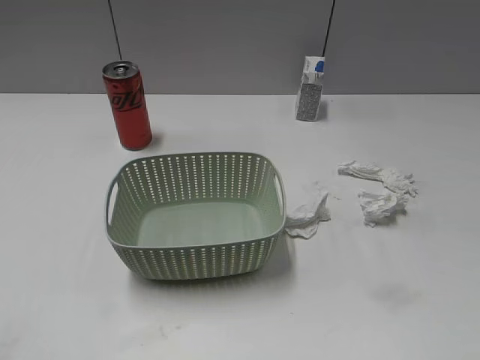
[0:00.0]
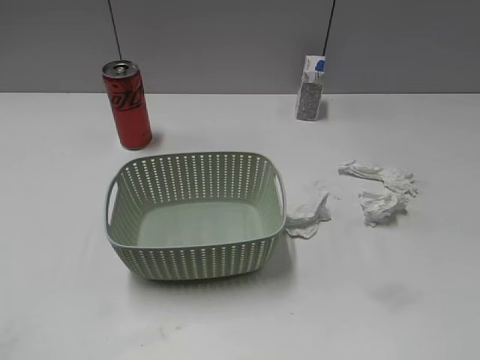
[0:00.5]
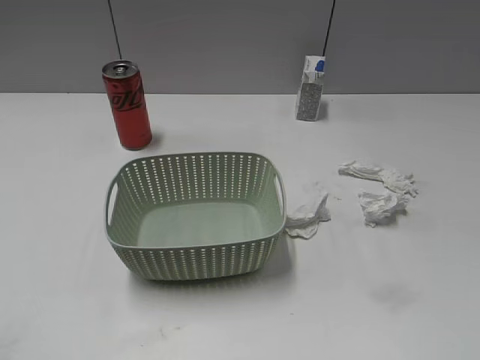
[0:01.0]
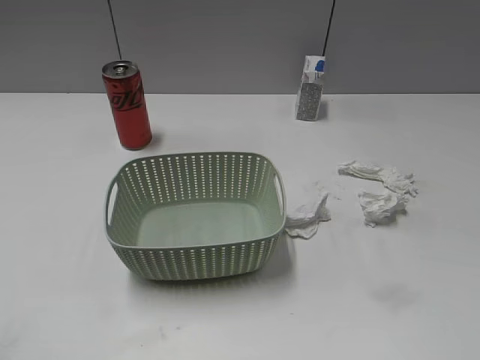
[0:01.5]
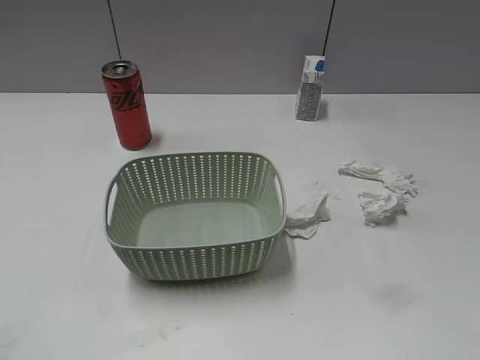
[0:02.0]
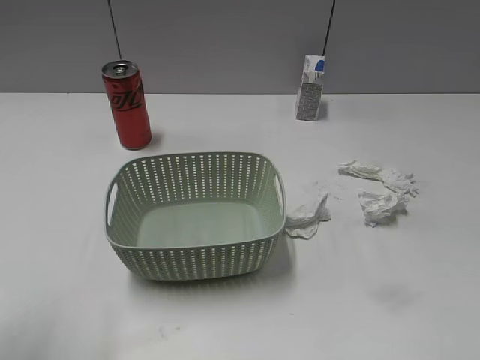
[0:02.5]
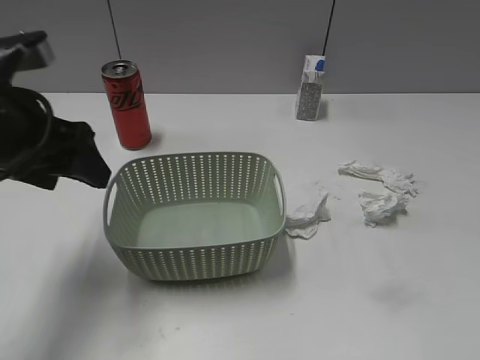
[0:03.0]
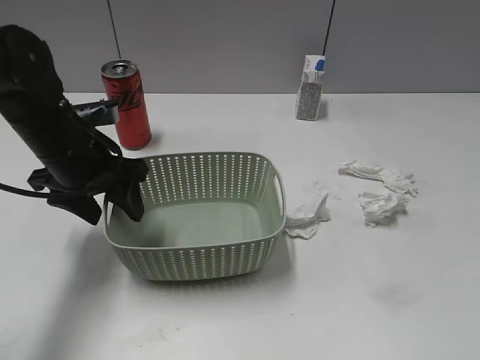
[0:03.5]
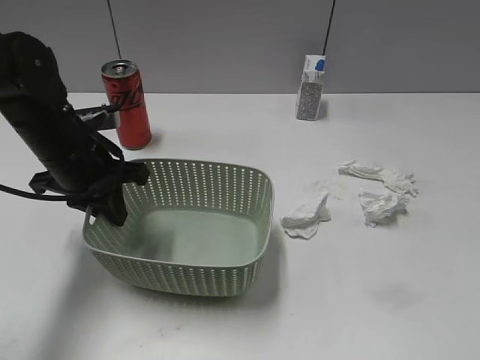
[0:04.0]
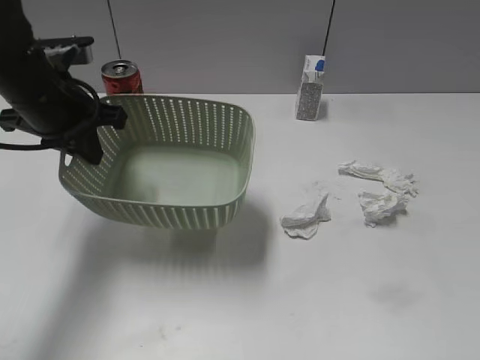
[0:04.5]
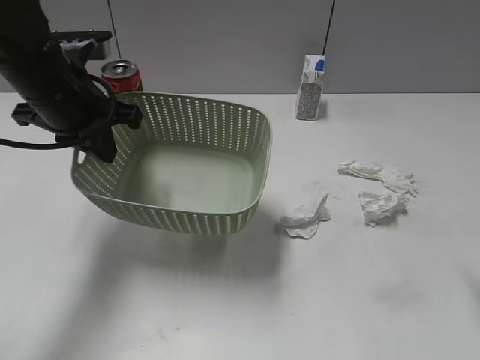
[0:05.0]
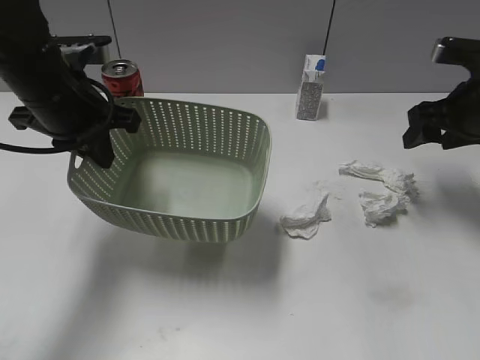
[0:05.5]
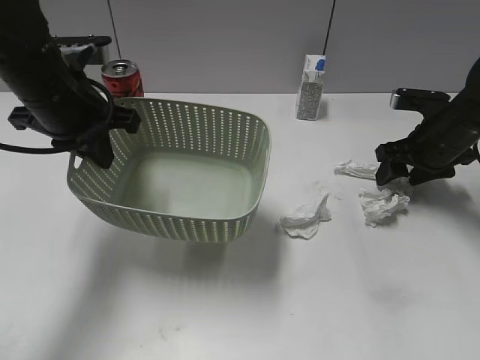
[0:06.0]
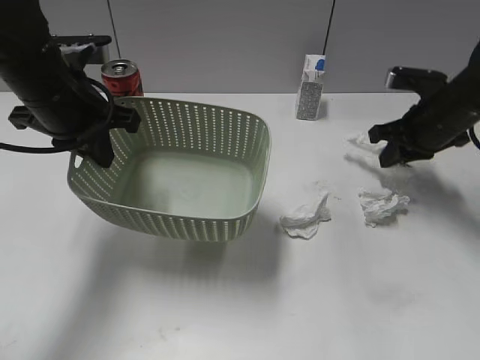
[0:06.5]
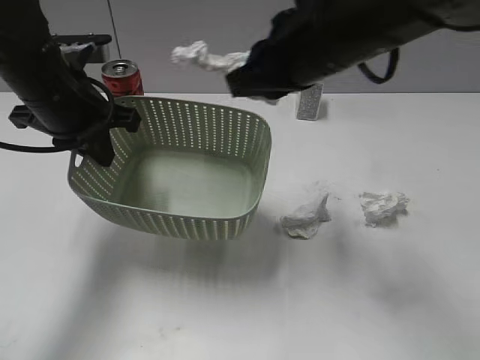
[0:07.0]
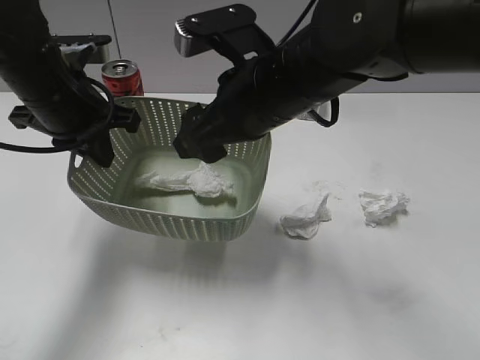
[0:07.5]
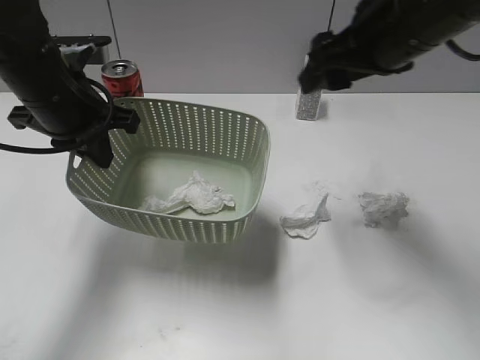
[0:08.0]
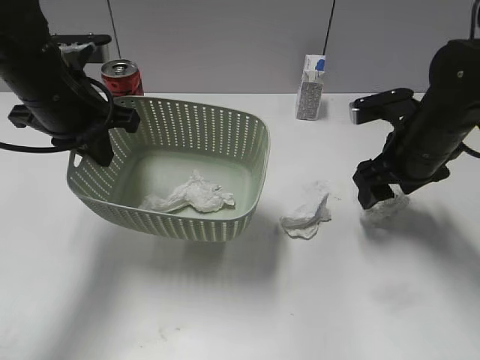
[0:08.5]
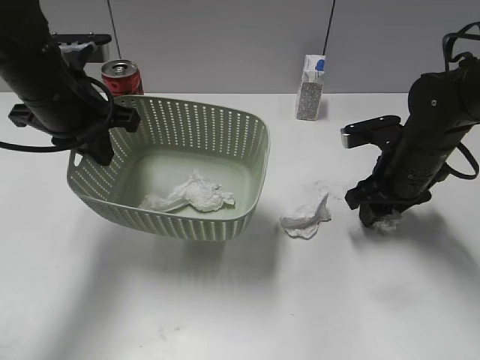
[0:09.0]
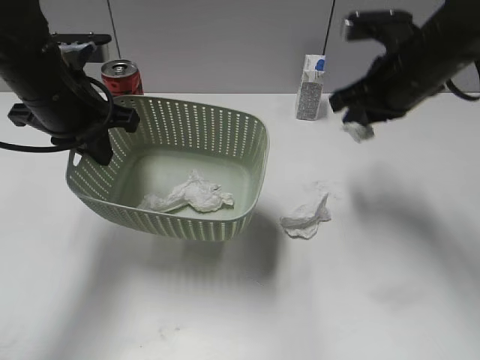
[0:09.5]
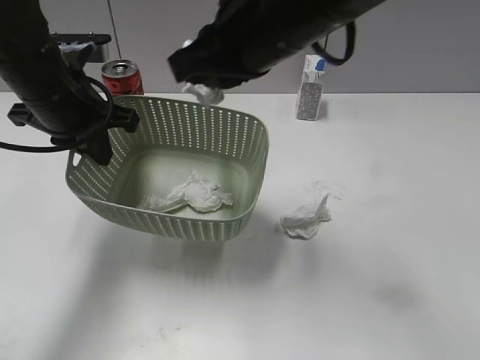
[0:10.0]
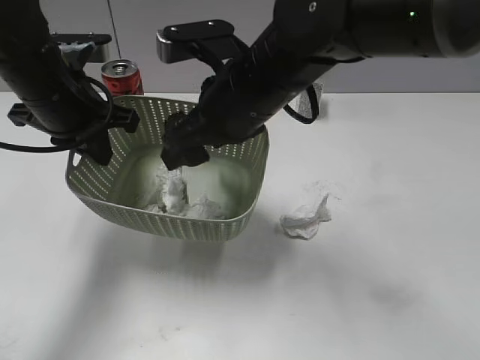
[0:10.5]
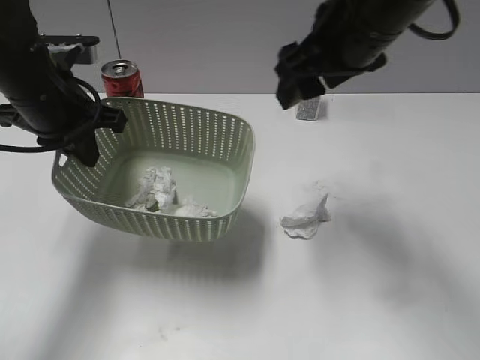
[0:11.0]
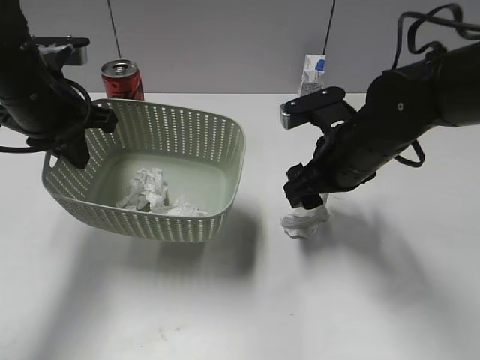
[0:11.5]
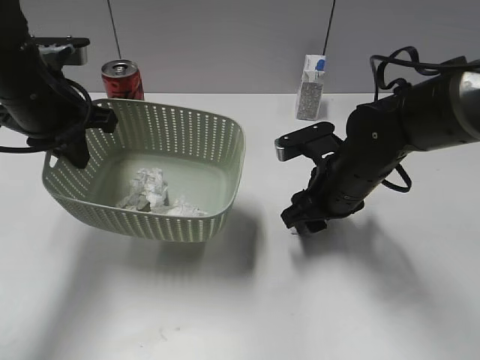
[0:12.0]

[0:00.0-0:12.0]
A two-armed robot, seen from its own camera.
Step, 0:02.5 to 0:04.0: Grasp the basket with left gripper.
Step, 0:04.5 to 0:06.5: Grasp the waste paper with right gripper.
Step, 0:07.0 to 0:07.5: Place the waste paper in the basket with right gripper.
Step, 0:08.0 to 0:09.5: Grasp the waste paper with right gripper.
Step, 0:10.0 to 0:10.5: Place the waste paper in the basket with right gripper.
0:02.0 to 0:04.0: The left gripper is displaced forward and downward by about 30 cm, and closes up.
0:04.0 to 0:06.0: The right gripper heads forward, covering some 40 cm. The left gripper heads upward, covering roughly 5 cm.
0:06.0 to 0:08.0: The right gripper is displaced upward, to the left and backward by about 25 cm, and closes, then reopens.
0:08.0 to 0:10.0: The right gripper travels to the left by approximately 15 cm, and closes up.
0:10.0 to 0:12.0: The right gripper goes up and down, approximately 20 cm each way, reversing 2 times, and opens.

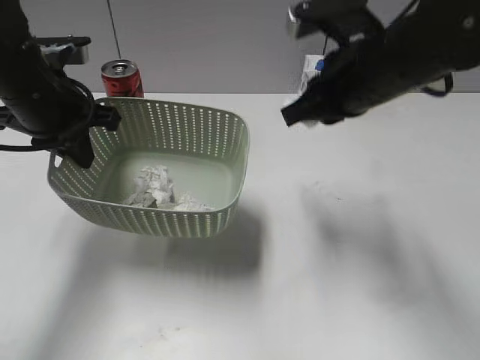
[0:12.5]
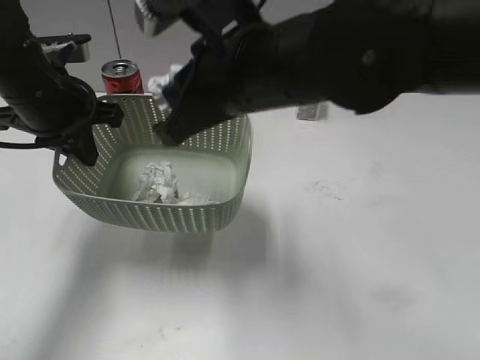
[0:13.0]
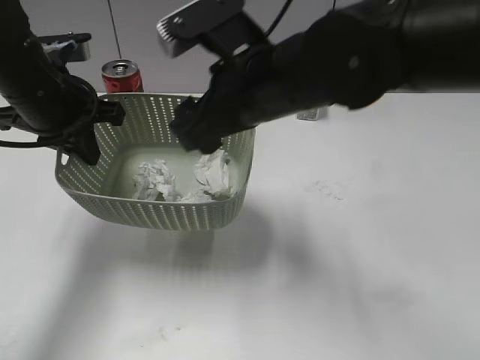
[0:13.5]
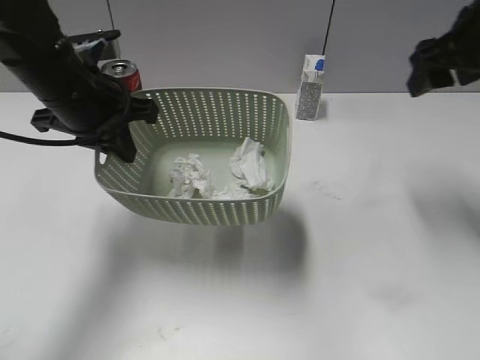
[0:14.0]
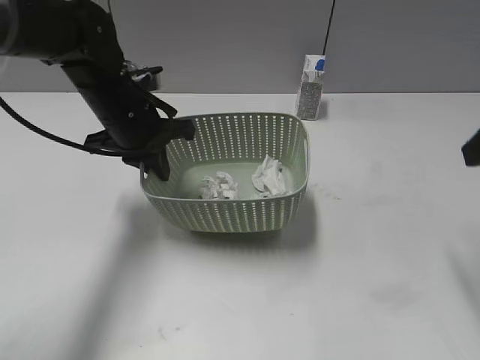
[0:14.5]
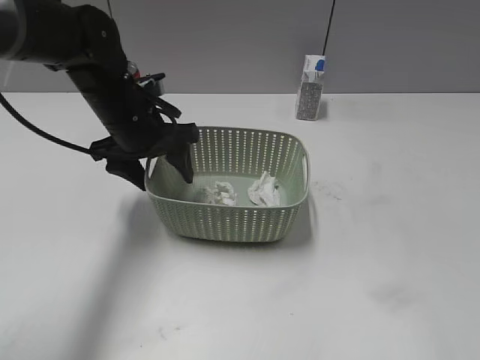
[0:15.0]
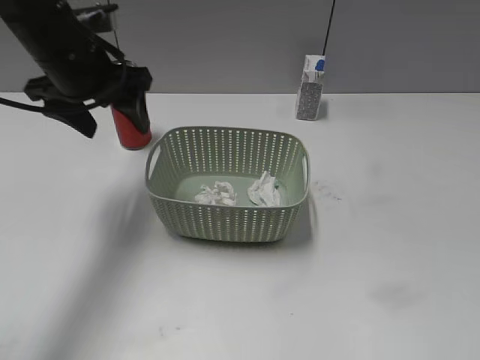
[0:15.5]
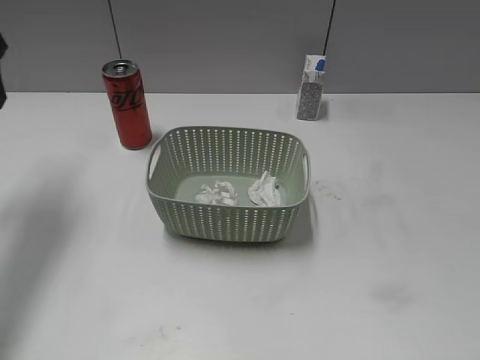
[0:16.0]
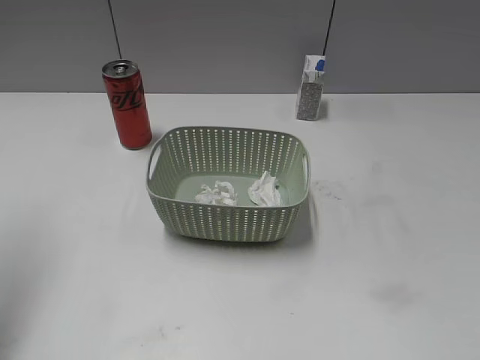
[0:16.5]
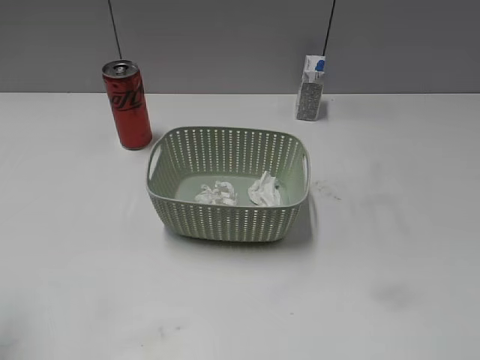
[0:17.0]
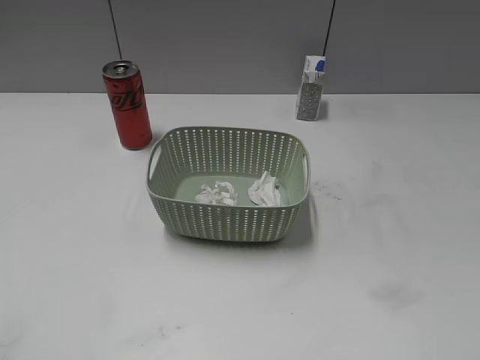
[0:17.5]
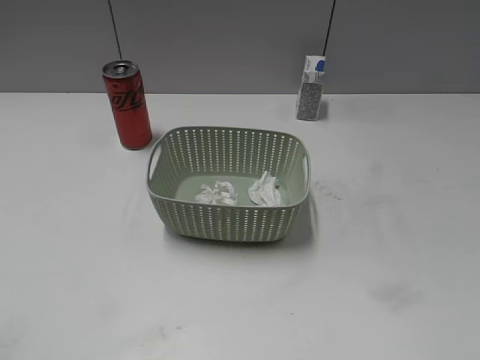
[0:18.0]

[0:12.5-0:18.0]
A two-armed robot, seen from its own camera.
Step, 0:12.5 to 0:13.5: Place the waste paper in the basket with right gripper.
Step, 0:14.0 to 0:14.5: Place the basket on the table with left gripper.
0:12.5 to 0:14.5: The right gripper is displaced to the right and backward by about 20 cm, and opens up. The left gripper heads to the right and downward, covering approximately 10 cm.
0:14.5 to 0:16.0: The right gripper heads backward, covering approximately 20 cm; the left gripper is displaced to the left and upward by some 20 cm, and opens.
0:16.0 to 0:18.0: The left gripper travels backward by about 35 cm.

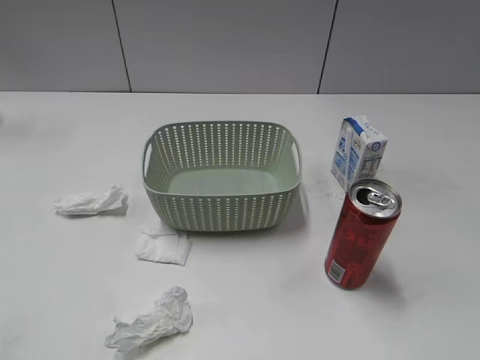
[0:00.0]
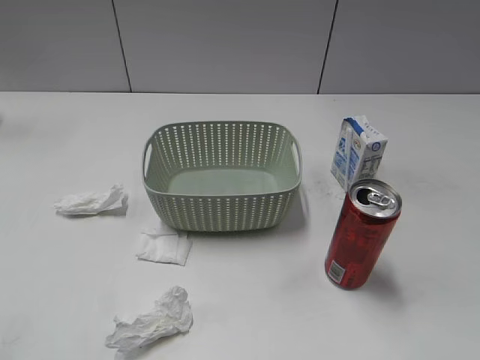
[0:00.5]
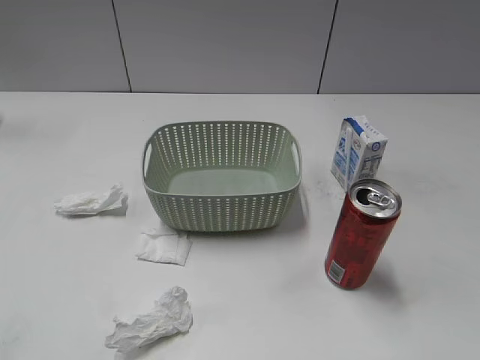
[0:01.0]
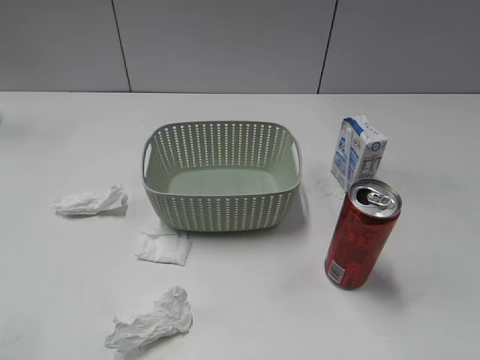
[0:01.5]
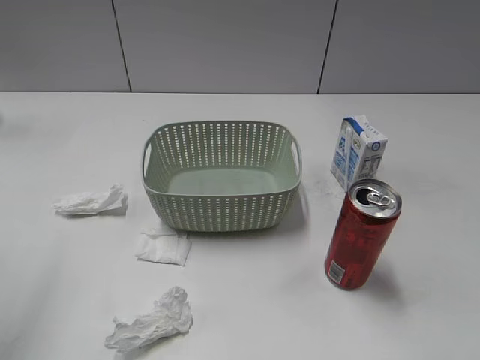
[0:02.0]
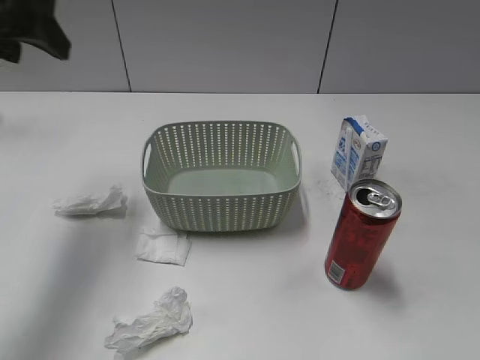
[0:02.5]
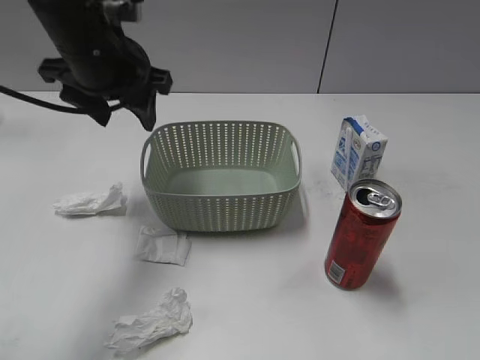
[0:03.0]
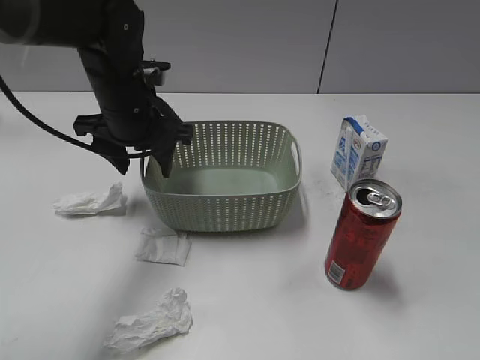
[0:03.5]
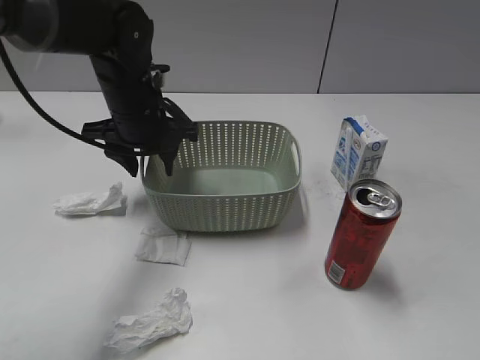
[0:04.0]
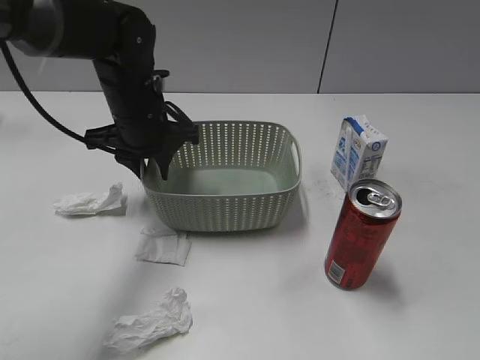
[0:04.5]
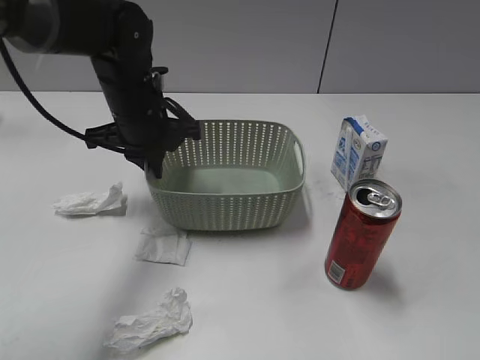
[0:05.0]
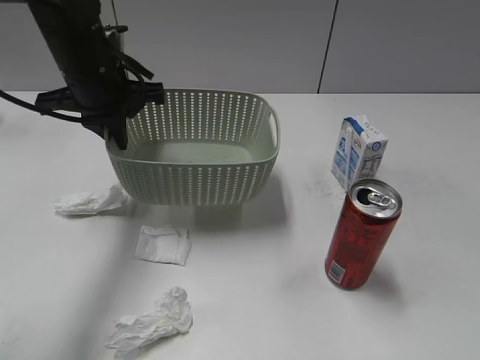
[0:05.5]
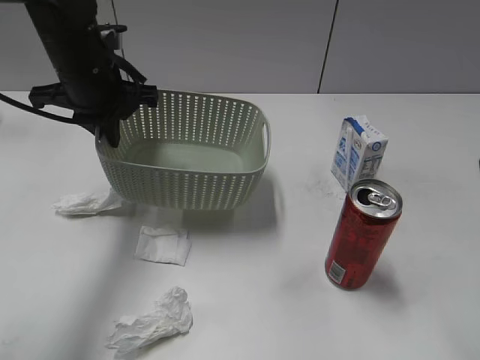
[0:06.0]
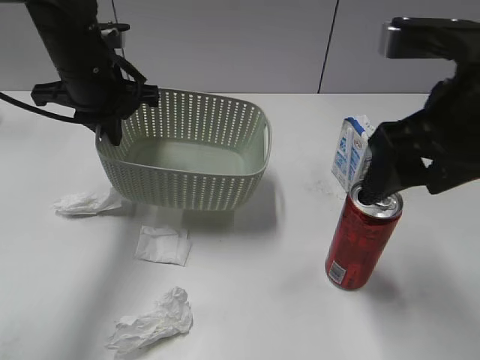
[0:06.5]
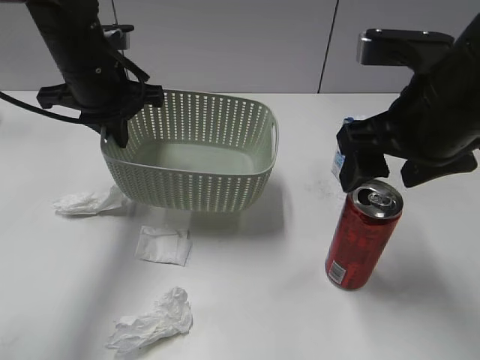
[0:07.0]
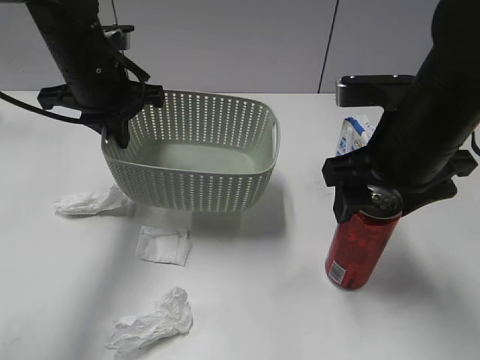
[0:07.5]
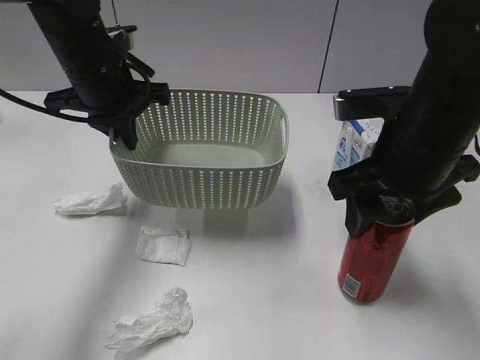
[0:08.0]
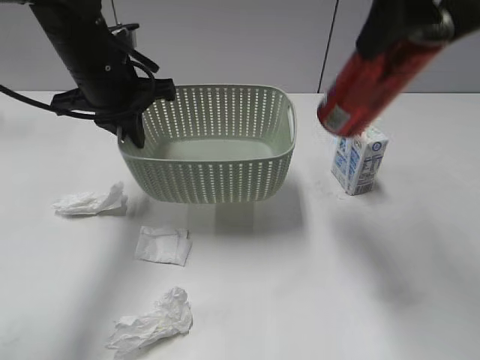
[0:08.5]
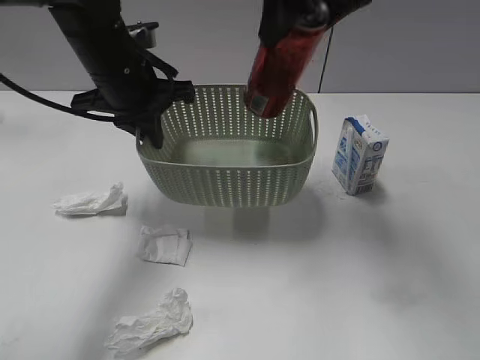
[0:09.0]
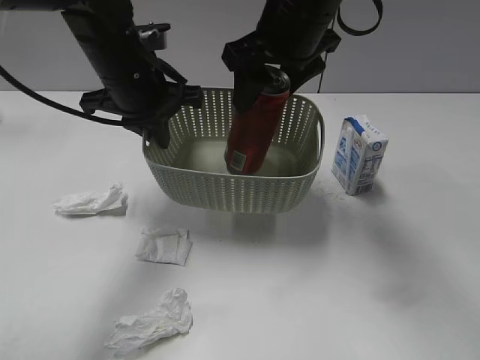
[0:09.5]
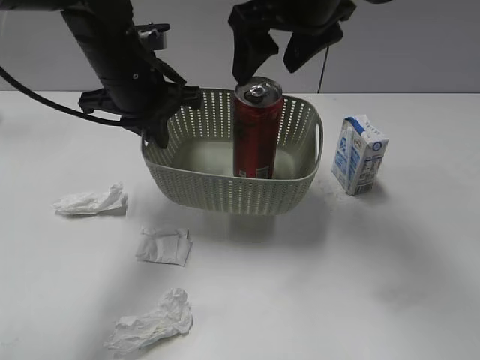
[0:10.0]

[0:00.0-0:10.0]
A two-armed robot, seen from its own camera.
Step, 0:02.5 to 0:04.5: Grasp the basket with left gripper.
Step, 0:05.0 to 0:06.0: Lift the basket with left gripper.
Step, 0:06.5 to 0:07.5: Grasp the cola can with right gripper.
Step, 0:08.0 to 0:10.0: Place the cola can in the basket with right gripper.
0:02.0 to 0:04.0: The left gripper moves to the right, forward and downward, about 35 cm.
0:04.0 to 0:06.0: The right gripper goes about 15 cm forward and upward, and opens; the left gripper travels upward by approximately 5 cm, and closes its fingers.
0:06.0 to 0:08.0: The right gripper goes some 20 cm downward, forward and to the left, and closes its fingers.
0:08.0 to 0:10.0: The right gripper moves up and down over some 20 cm, changing direction 2 times, and opens its fingers.
